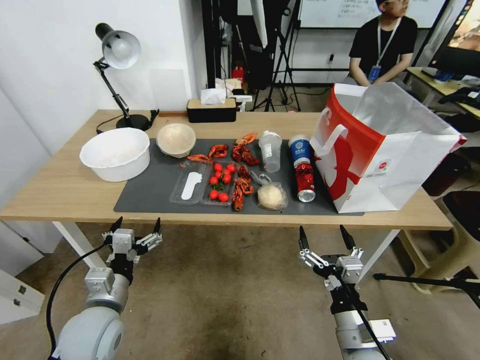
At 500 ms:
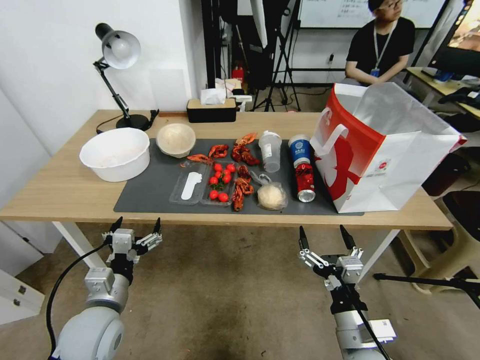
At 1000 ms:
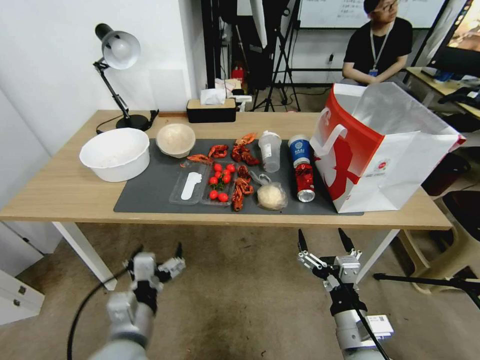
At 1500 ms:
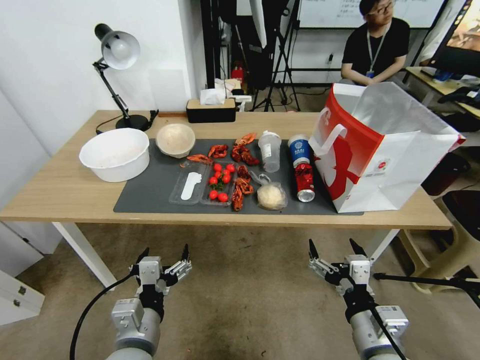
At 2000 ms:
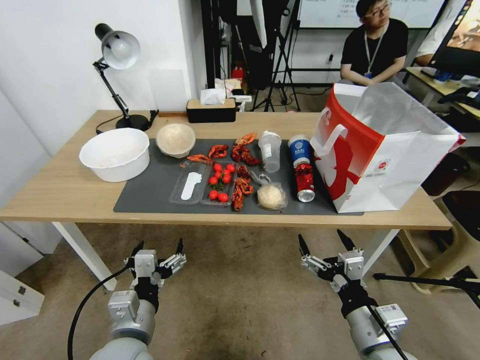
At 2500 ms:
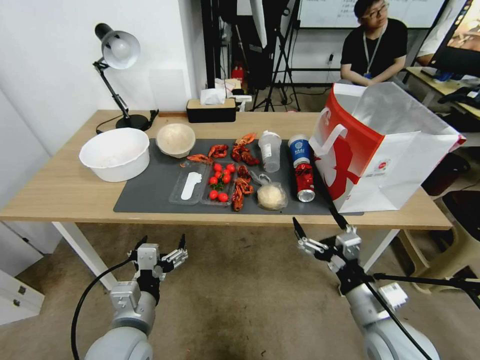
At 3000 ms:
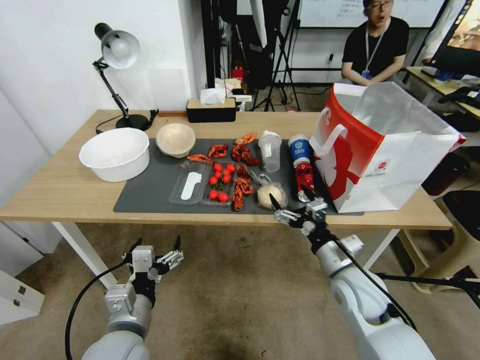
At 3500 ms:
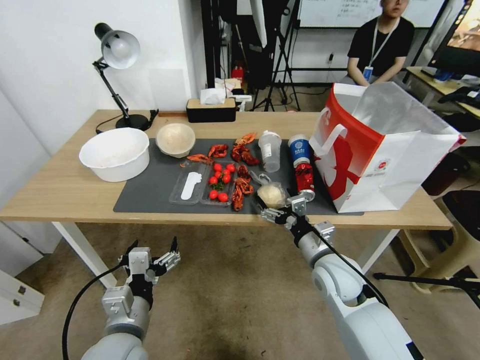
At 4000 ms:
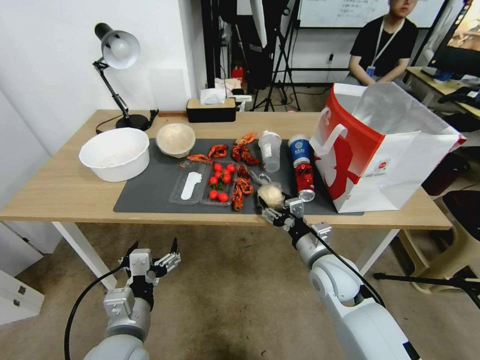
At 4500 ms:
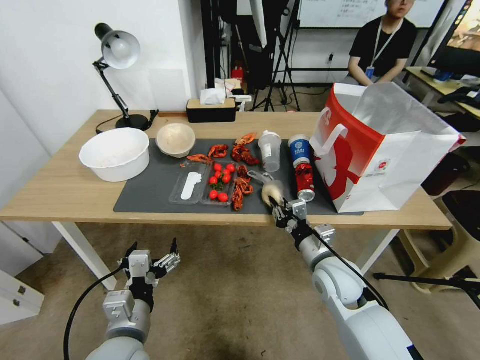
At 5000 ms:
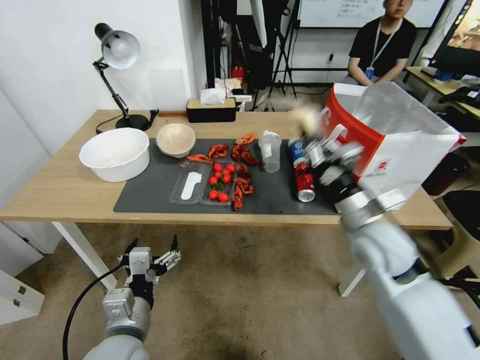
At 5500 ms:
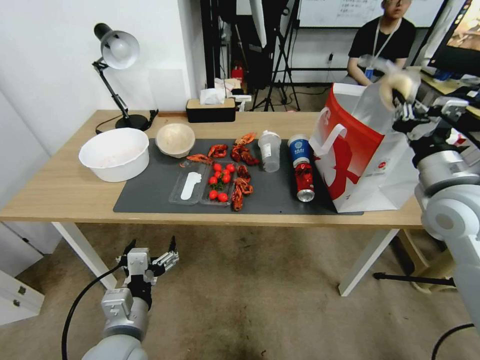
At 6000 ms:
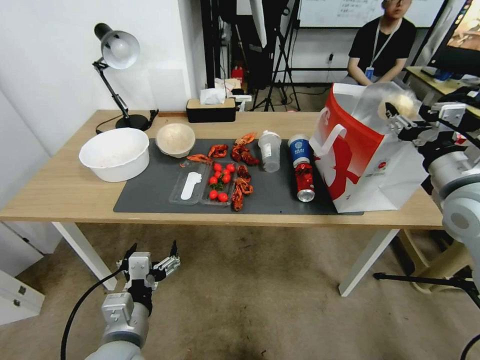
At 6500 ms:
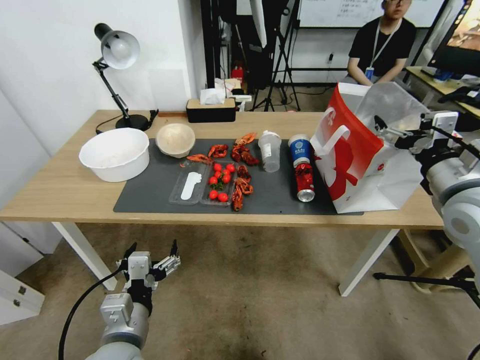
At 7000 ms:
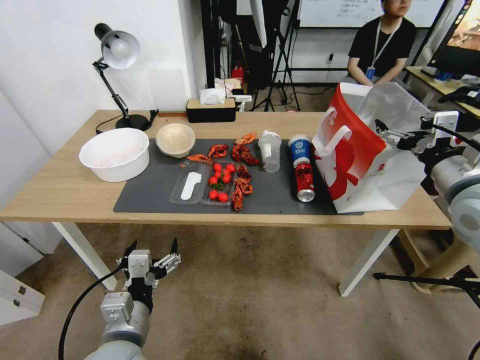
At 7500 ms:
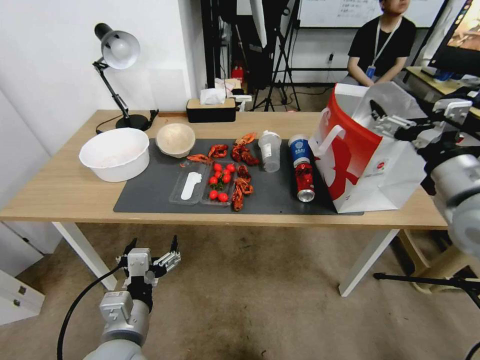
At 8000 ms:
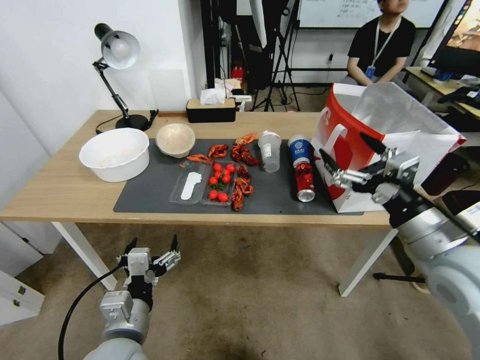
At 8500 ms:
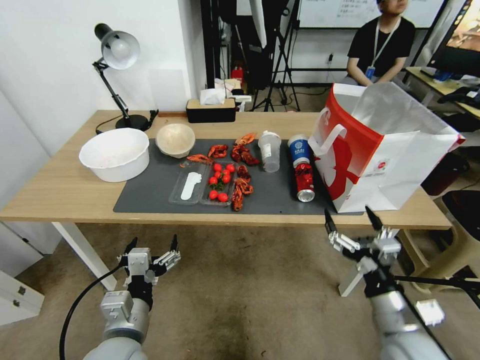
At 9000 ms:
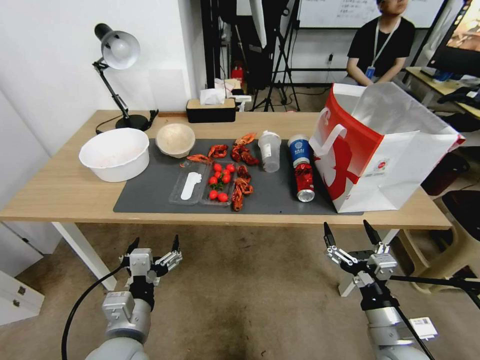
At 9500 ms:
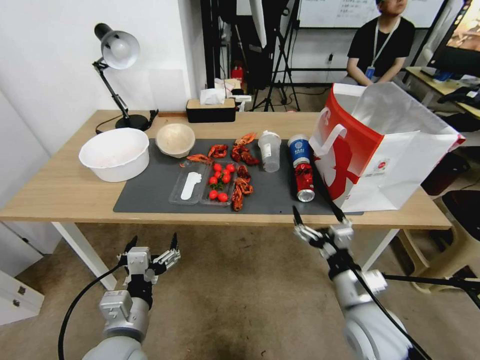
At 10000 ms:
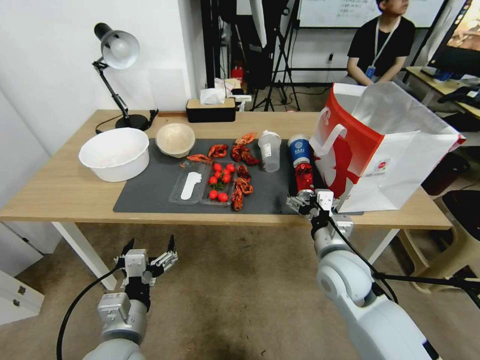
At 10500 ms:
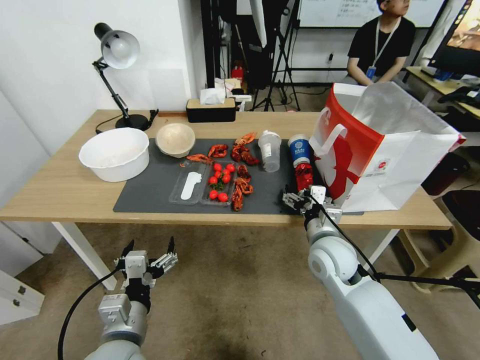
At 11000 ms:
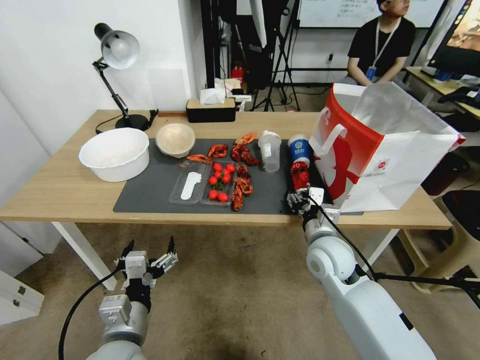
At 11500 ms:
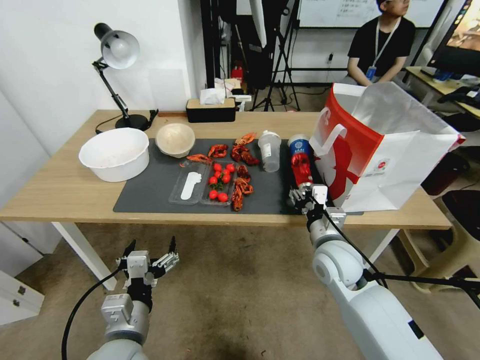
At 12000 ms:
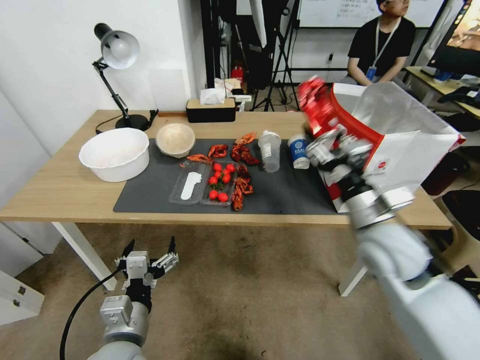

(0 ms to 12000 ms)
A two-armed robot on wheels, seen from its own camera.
2000 ms - 4000 ms: The right gripper moves forward, approximately 15 cm.
4000 ms - 6000 ms: The right gripper heads upward and to the right, covering approximately 30 cm, and closes, then opens again.
6000 ms - 8000 ms: The right gripper moves backward, approximately 5 cm, and opens its fingers.
8000 ms - 10000 ms: The right gripper shifts roughly 25 cm downward and to the left.
10000 ms - 12000 ms: The right gripper goes about 10 cm upward, and closes up.

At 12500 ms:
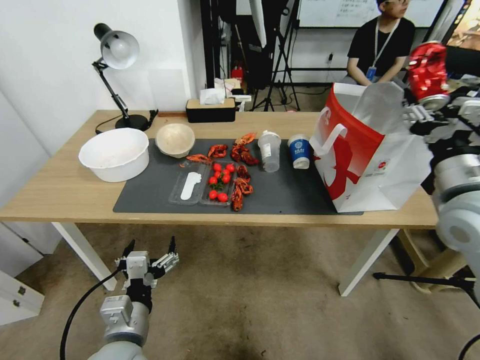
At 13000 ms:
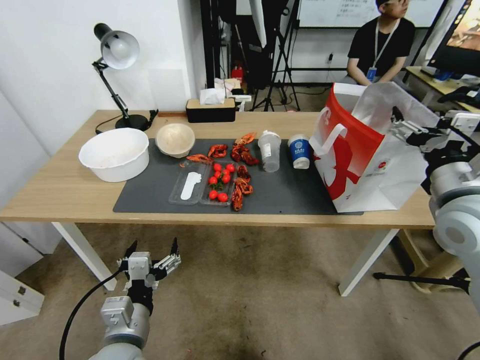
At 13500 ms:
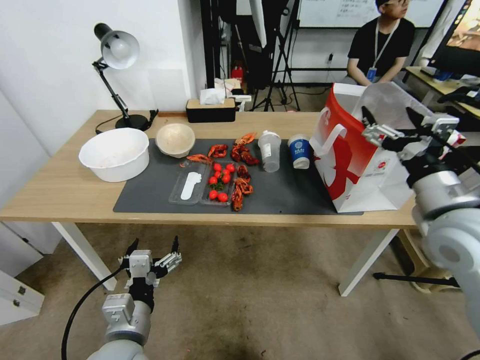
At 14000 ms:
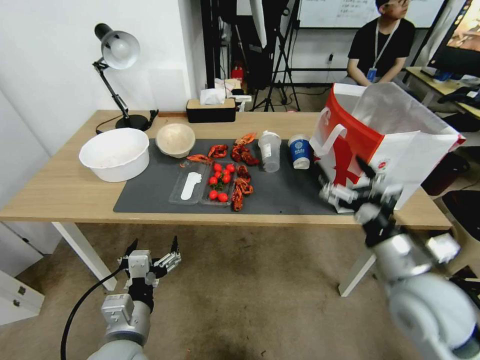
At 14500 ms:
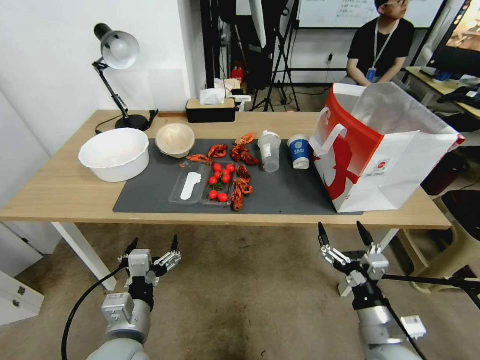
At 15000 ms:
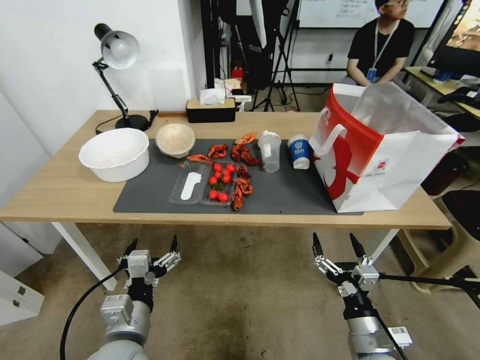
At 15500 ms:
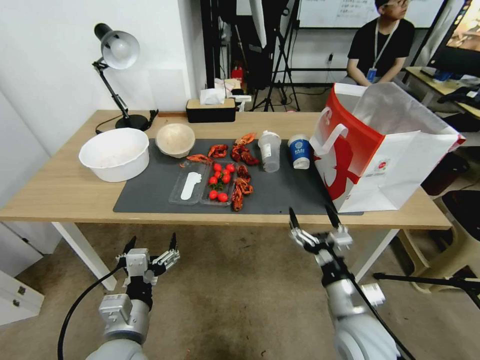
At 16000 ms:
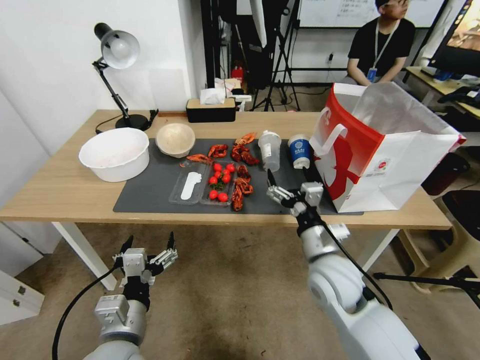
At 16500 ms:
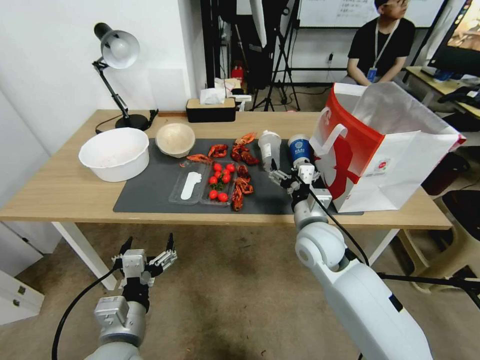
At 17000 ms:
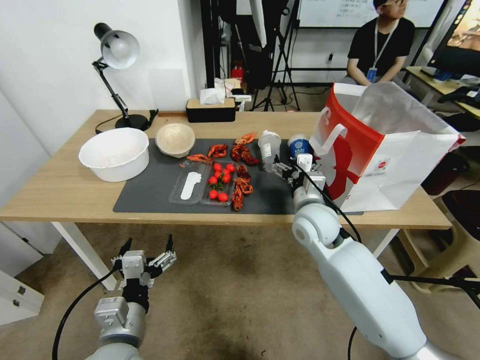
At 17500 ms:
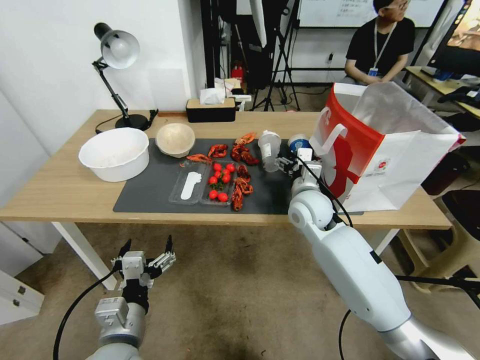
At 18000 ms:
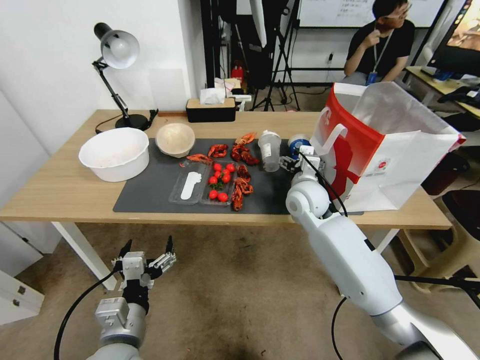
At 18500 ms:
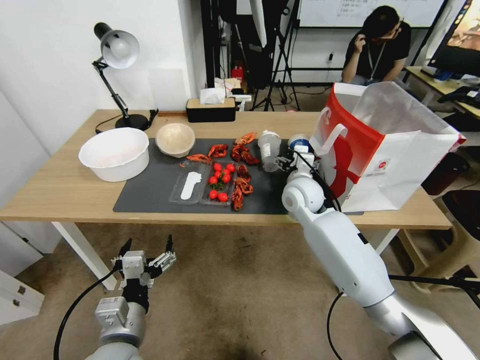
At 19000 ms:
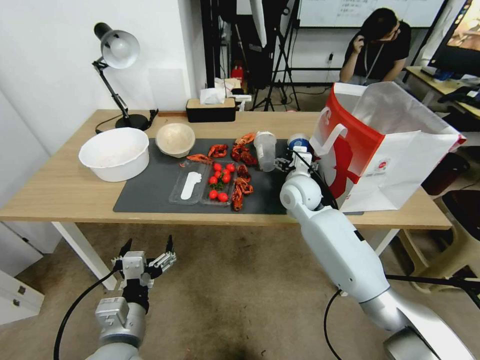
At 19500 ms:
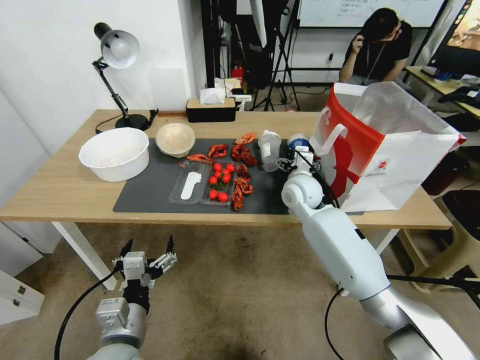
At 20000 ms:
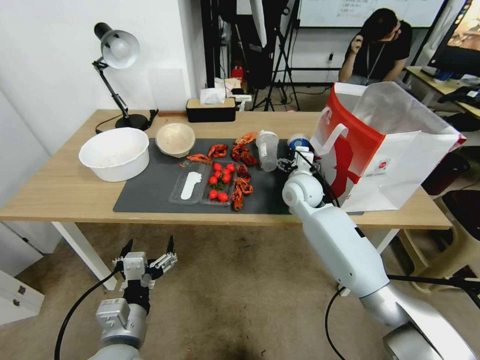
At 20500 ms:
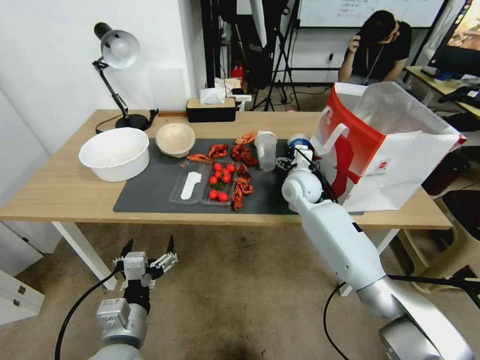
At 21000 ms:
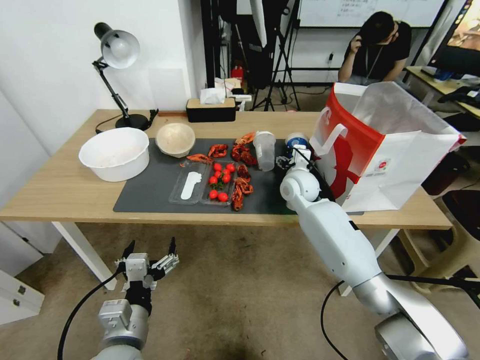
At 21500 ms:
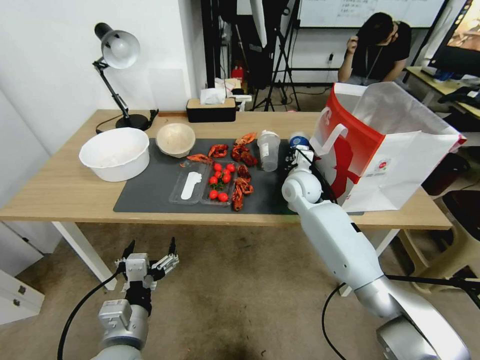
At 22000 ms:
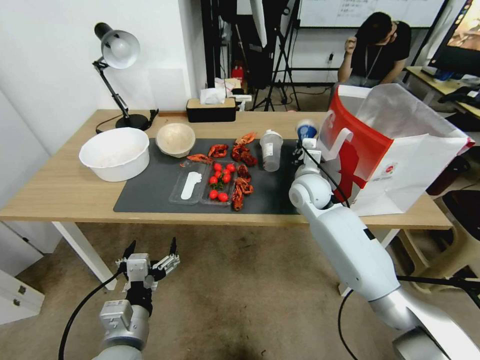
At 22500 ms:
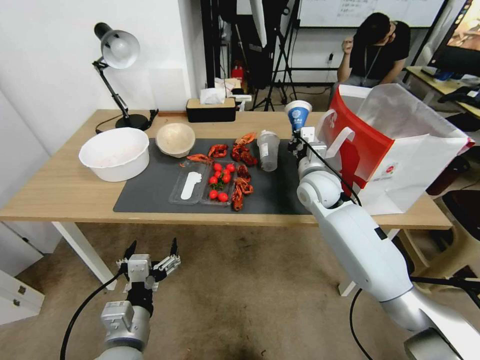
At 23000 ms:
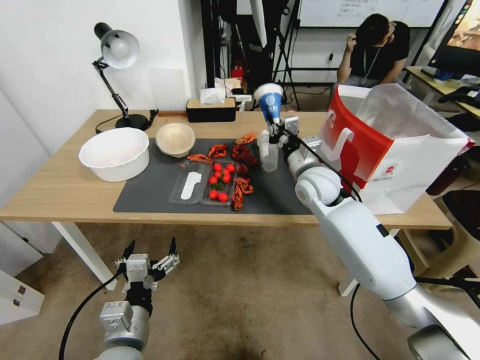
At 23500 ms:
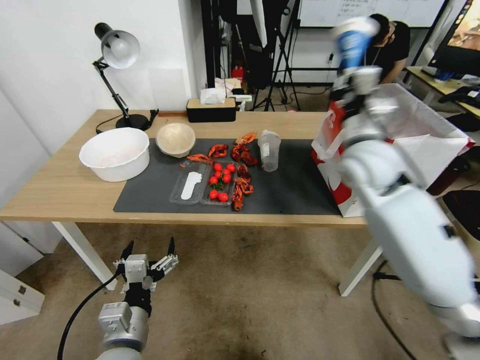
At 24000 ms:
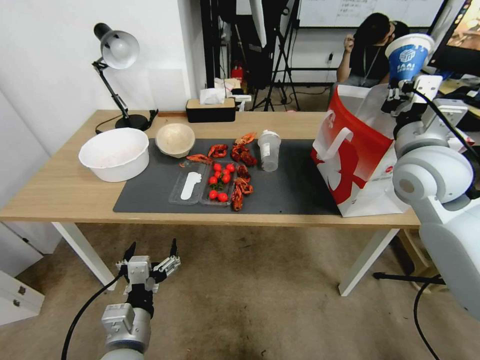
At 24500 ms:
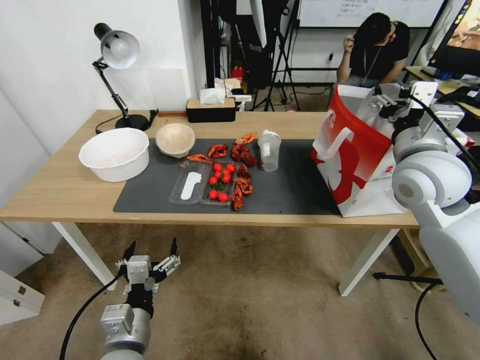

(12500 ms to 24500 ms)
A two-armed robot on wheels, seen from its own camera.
12500 ms - 14500 ms: The right gripper goes approximately 30 cm downward and backward, and opens its fingers.
14500 ms - 16500 ms: The right gripper heads forward, to the left and upward, covering approximately 25 cm.
16500 ms - 18500 ms: The right gripper moves forward, some 10 cm.
18500 ms - 20500 ms: There are only small adjustments of the grippers.
20500 ms - 22500 ms: The right gripper closes its fingers.
22500 ms - 24500 ms: The right gripper is displaced upward, to the right and backward by roughly 20 cm, and opens up.

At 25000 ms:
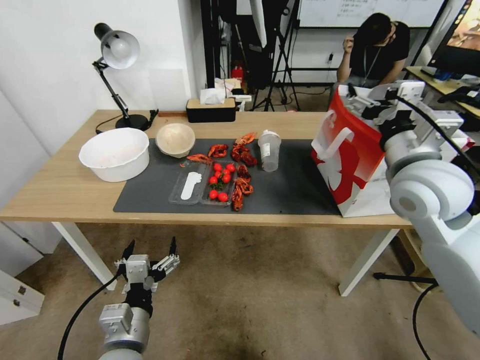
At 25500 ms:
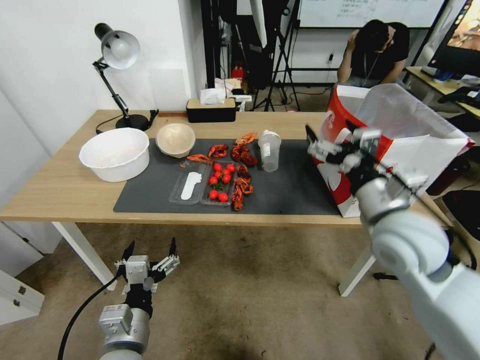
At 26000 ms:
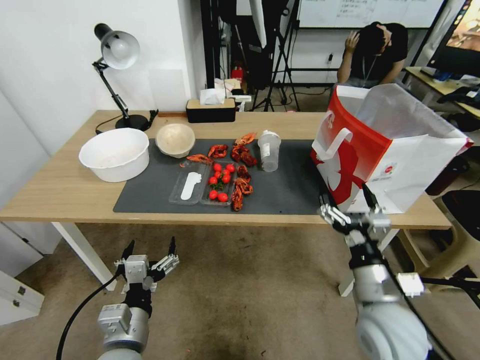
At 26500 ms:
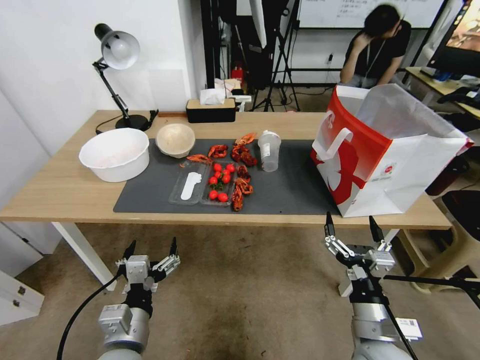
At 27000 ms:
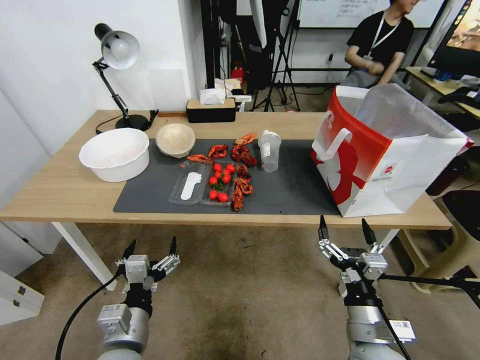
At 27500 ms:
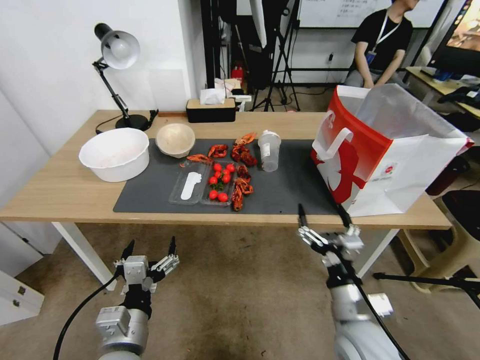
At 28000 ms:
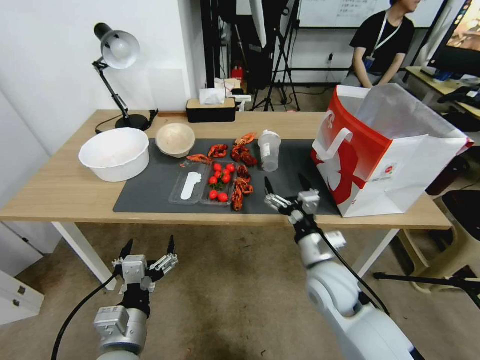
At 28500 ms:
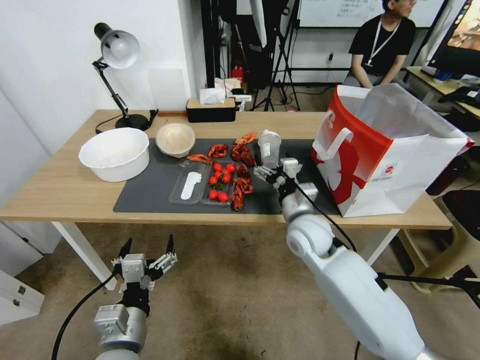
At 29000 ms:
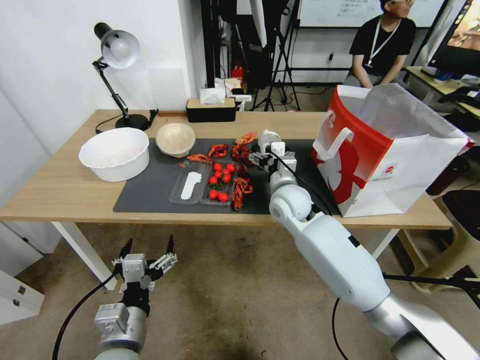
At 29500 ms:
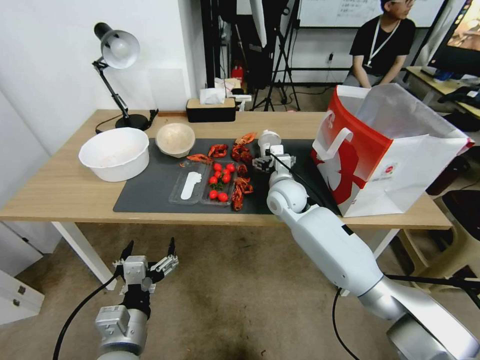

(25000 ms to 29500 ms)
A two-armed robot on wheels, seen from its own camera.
25000 ms - 27000 ms: The right gripper moves downward and backward, some 35 cm.
27000 ms - 29500 ms: The right gripper travels forward by some 35 cm.
